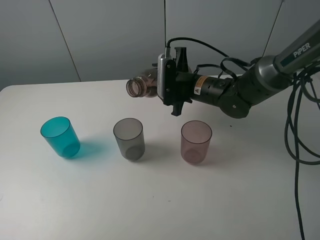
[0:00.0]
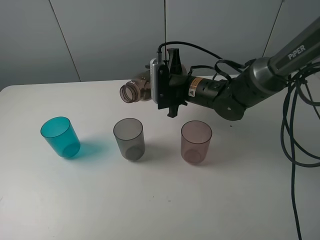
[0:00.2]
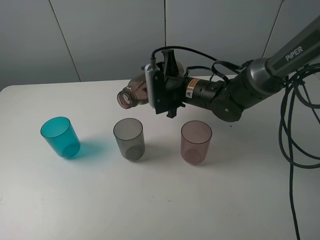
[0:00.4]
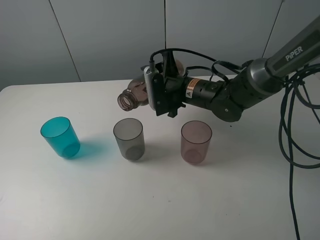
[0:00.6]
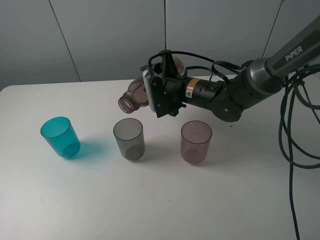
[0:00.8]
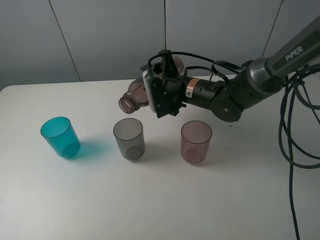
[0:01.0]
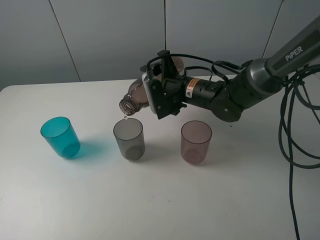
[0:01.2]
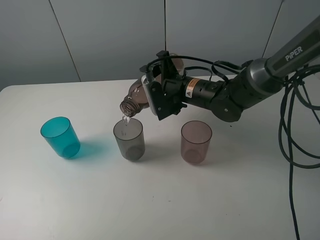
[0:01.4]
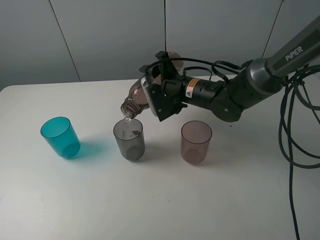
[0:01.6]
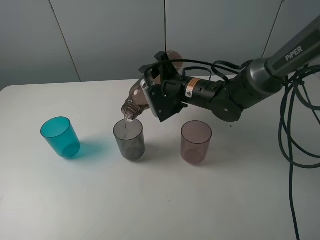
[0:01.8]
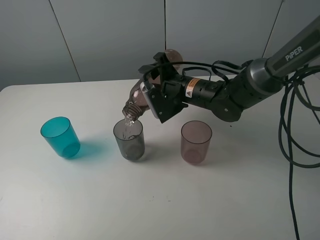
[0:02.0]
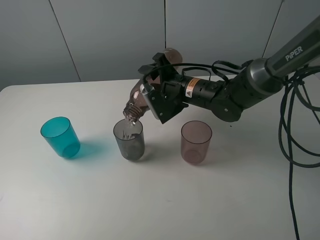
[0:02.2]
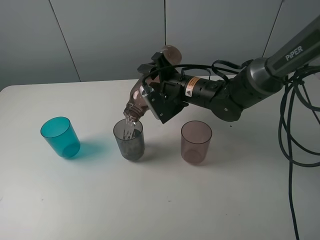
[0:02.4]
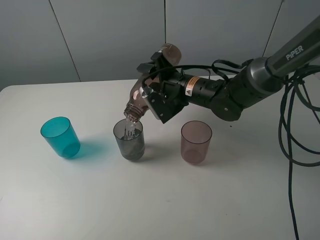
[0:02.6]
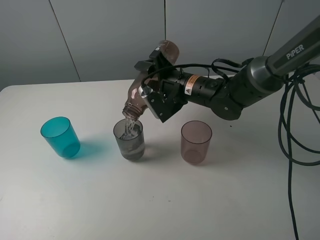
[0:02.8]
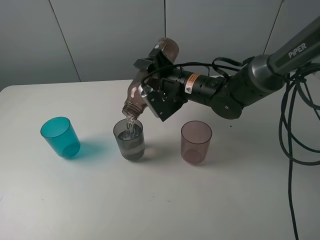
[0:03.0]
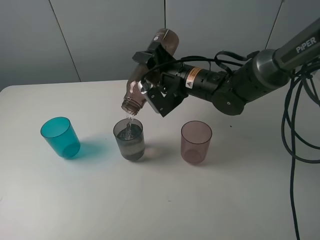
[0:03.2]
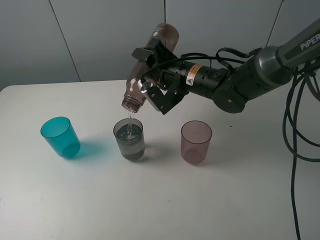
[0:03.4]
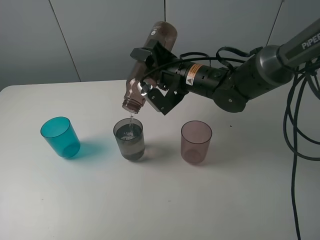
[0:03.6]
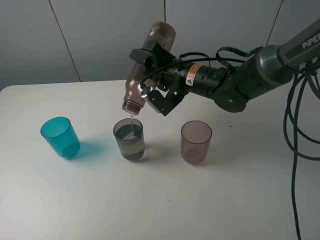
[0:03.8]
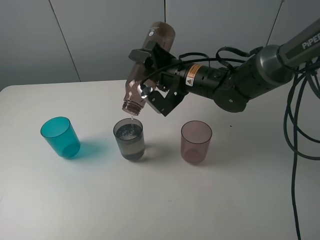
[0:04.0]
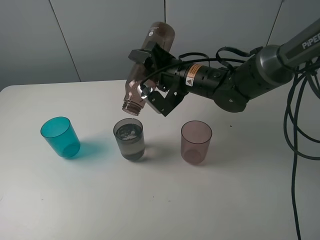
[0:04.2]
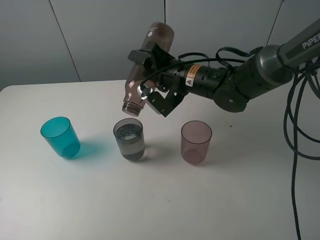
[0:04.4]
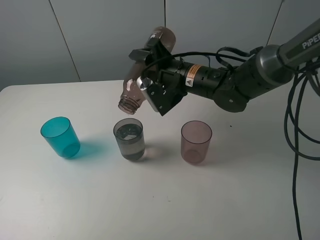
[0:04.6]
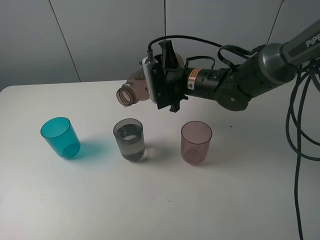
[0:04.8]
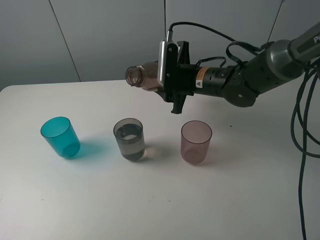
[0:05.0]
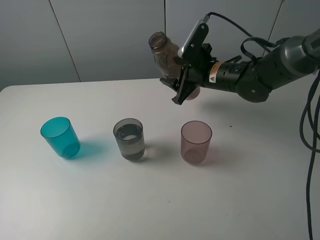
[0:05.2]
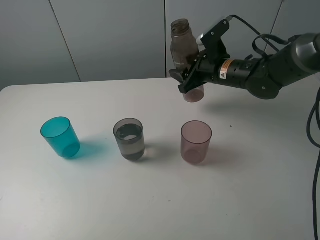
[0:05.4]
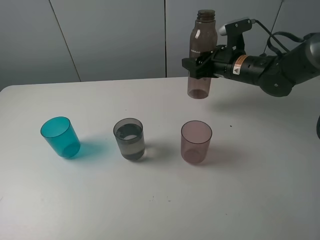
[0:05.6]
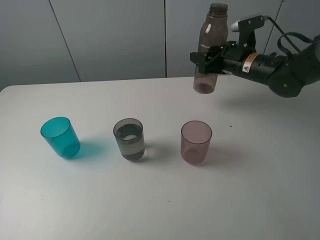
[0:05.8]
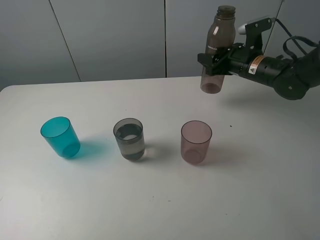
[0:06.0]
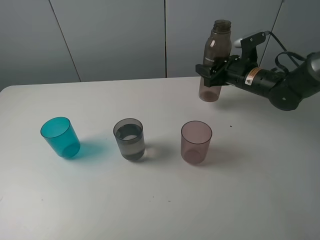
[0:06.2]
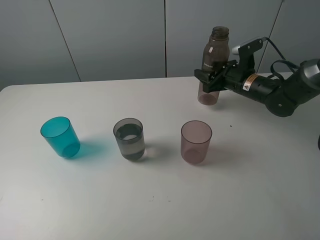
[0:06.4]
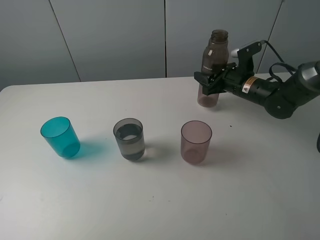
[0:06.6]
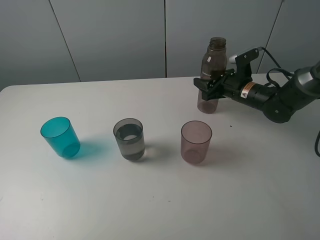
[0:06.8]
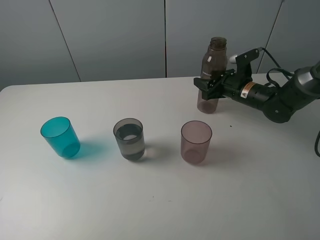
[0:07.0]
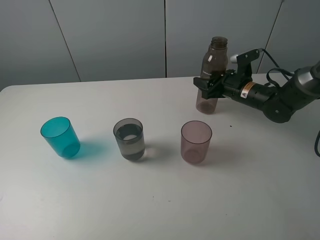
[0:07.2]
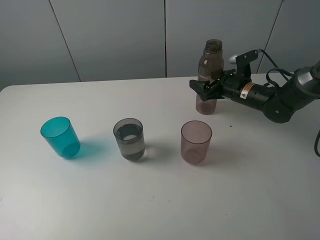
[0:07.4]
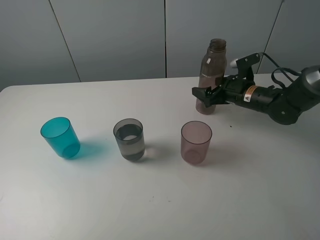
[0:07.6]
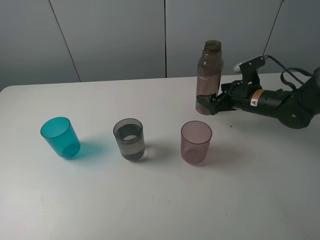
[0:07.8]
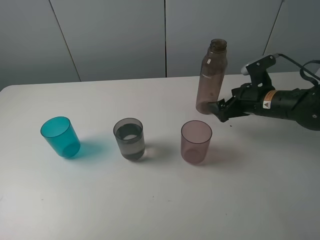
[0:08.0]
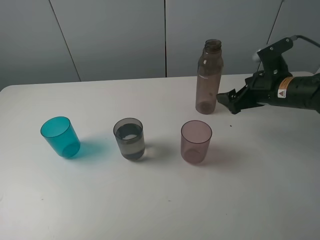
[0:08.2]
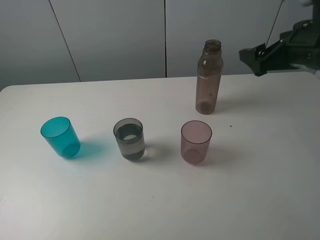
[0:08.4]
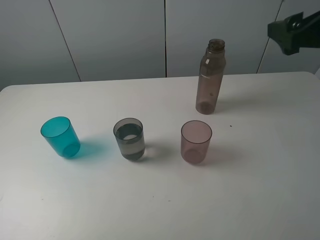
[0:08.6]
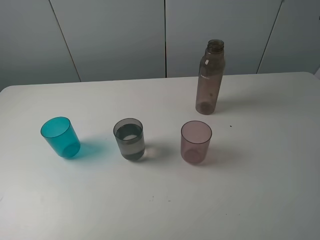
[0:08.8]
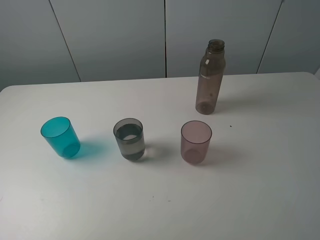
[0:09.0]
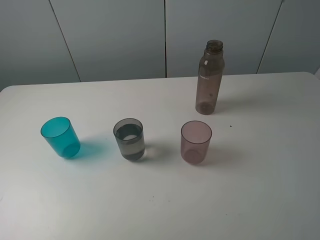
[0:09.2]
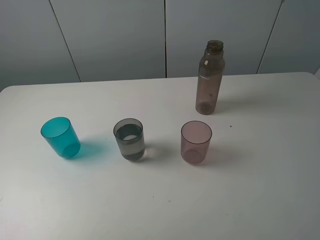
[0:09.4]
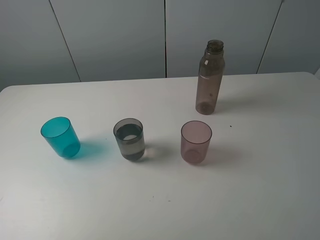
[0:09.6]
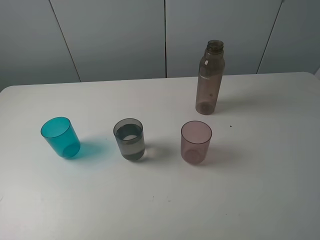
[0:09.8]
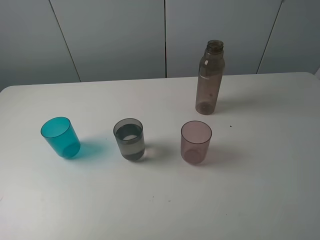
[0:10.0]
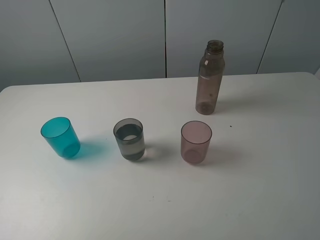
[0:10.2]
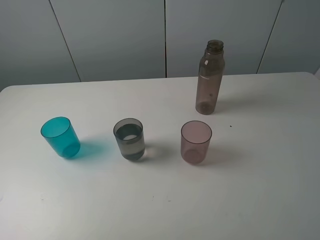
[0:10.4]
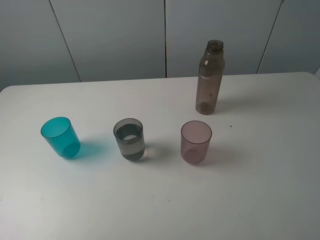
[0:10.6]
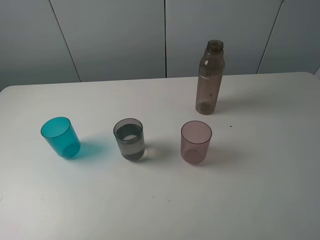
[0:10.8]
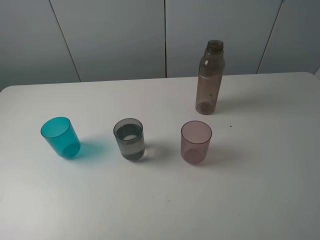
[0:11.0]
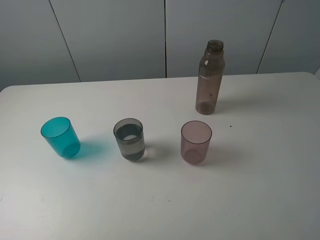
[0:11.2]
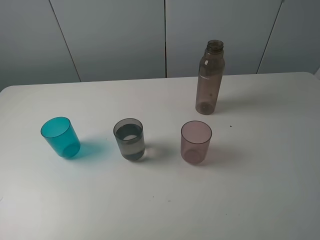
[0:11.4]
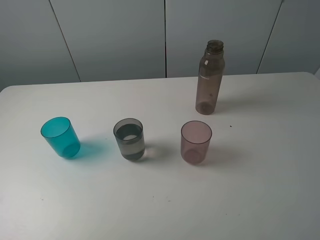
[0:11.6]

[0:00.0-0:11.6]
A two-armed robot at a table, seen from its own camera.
Task of the whole recording: pick up the bottle filled with water and pour water into the middle cup of the three cups.
Step, 0:01.0 to 0:07.8: Place the transparent bottle with the right gripper.
0:01.4 to 0:02.8: There are only small adjustments of the grippers.
0:02.8 to 0:04.4: The grippers move only a little.
0:04.4 to 0:05.8: The right gripper goes some 15 cm to the right and forward.
0:05.8 to 0:07.2: The right gripper travels downward by roughly 10 cm.
0:07.2 to 0:08.8: The right gripper goes approximately 35 cm upward and backward, and opens its fingers.

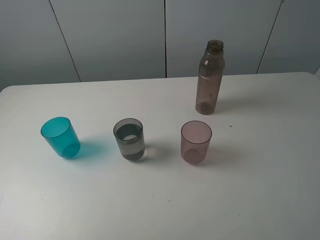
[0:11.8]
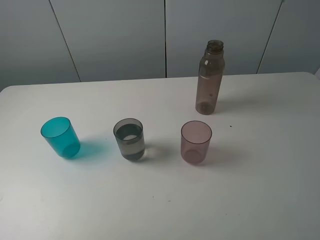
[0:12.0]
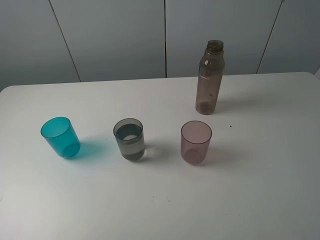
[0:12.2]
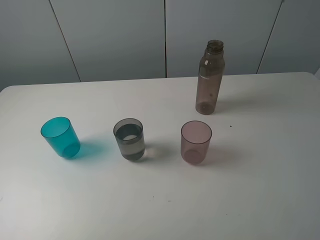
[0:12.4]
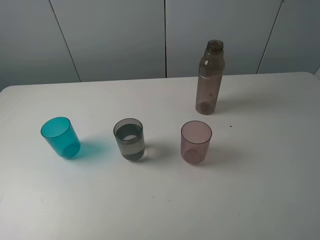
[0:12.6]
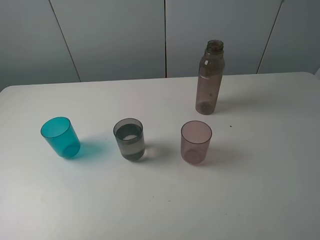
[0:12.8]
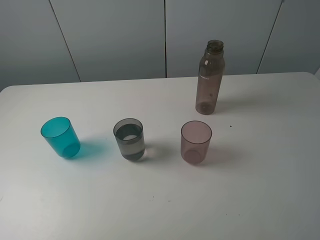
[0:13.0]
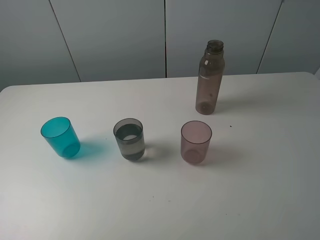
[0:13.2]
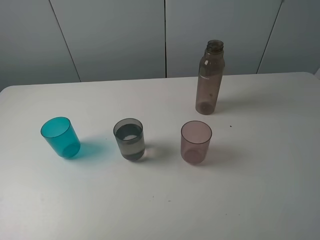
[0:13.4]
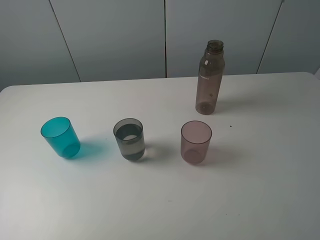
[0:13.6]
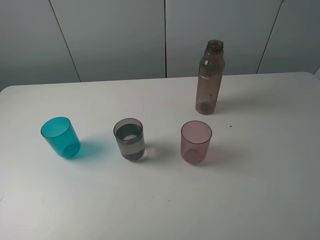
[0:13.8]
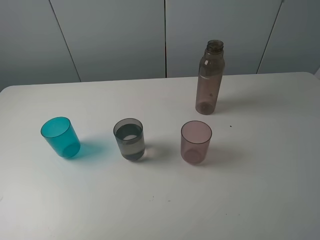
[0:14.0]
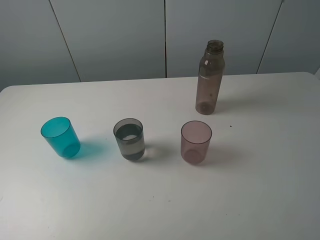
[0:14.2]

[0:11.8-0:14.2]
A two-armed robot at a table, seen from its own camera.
Task of the whole recording: pick up the bottle filled with water and pour water into the middle cup of the three cups.
0:11.8 to 0:14.2: The two grippers keep their place.
